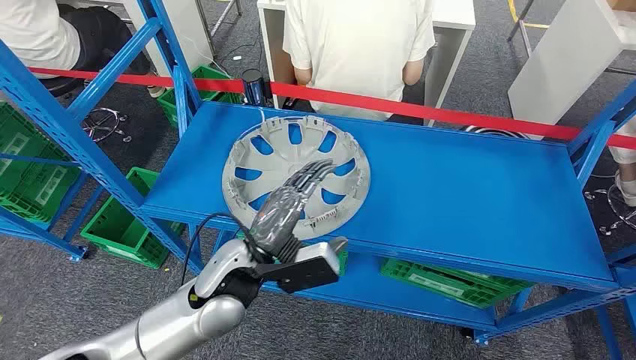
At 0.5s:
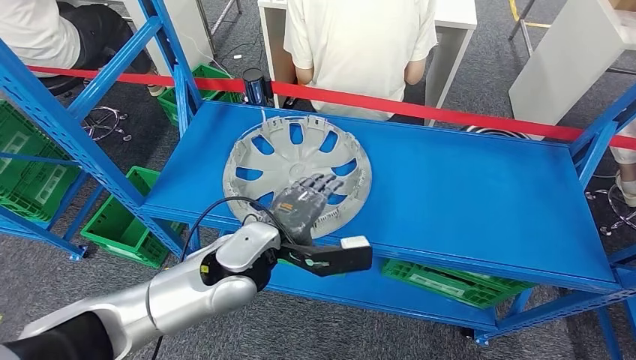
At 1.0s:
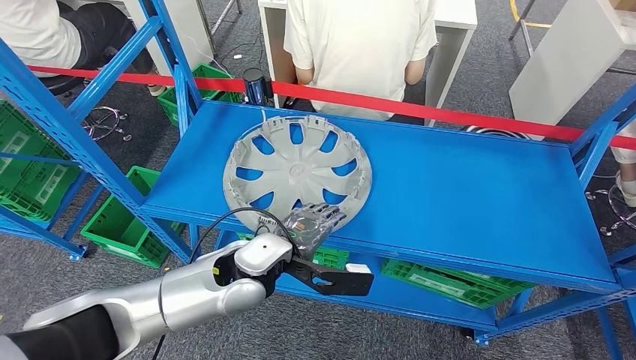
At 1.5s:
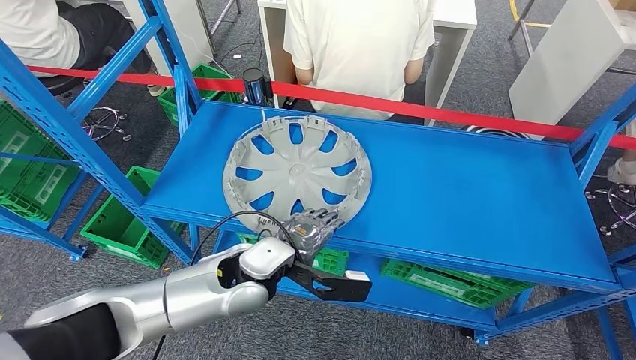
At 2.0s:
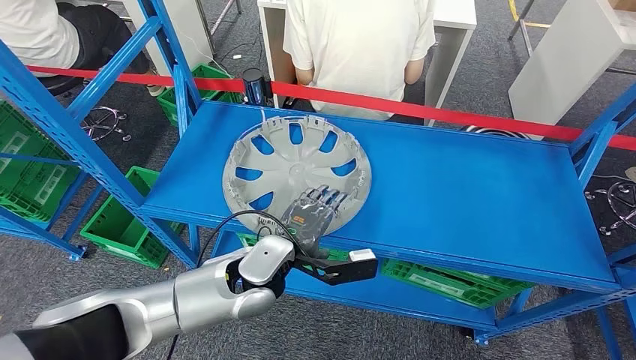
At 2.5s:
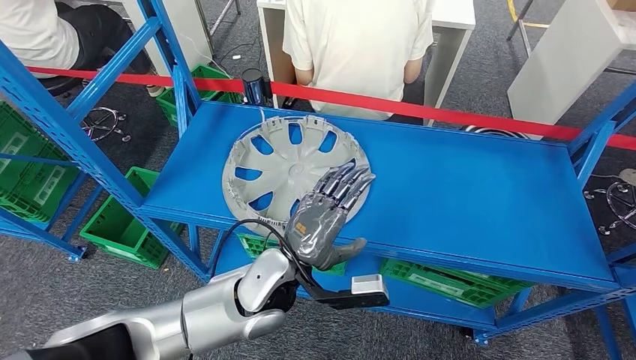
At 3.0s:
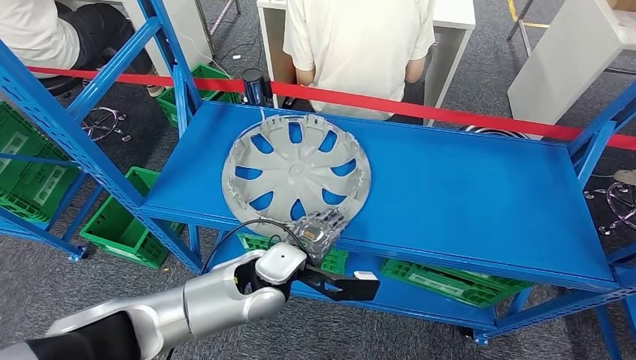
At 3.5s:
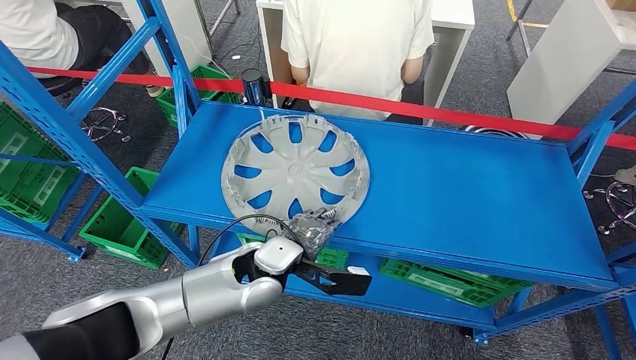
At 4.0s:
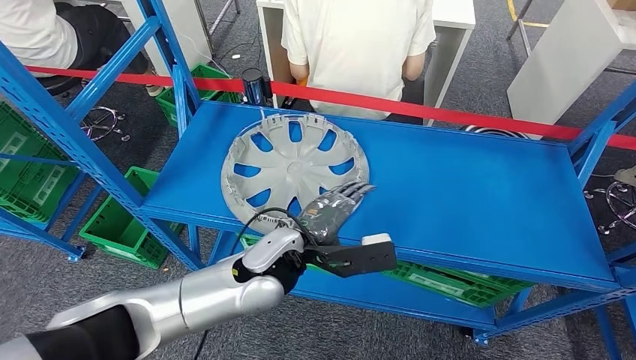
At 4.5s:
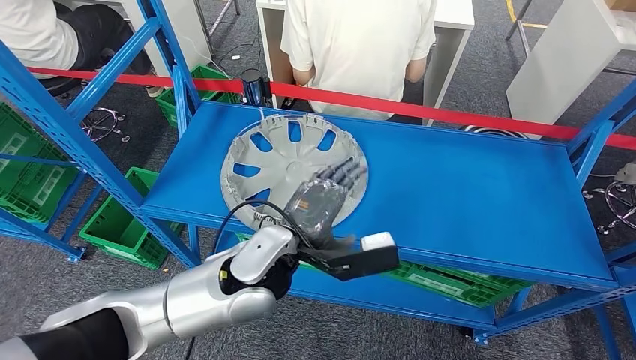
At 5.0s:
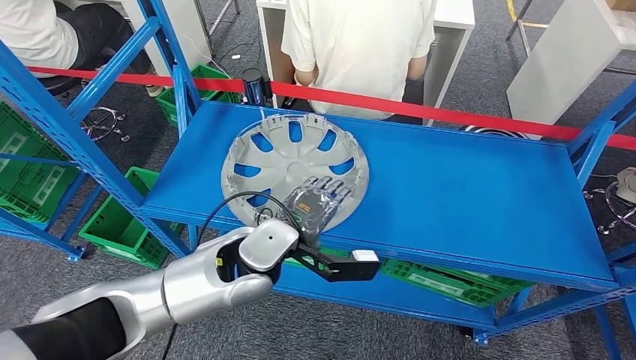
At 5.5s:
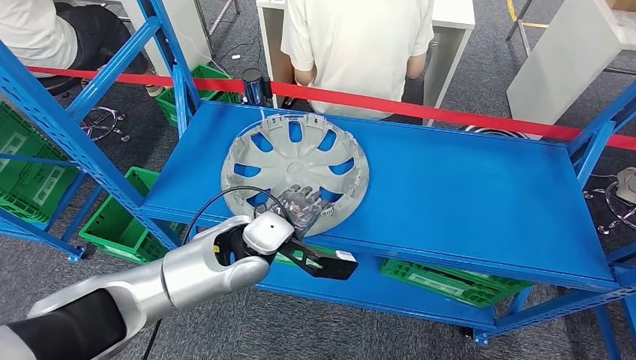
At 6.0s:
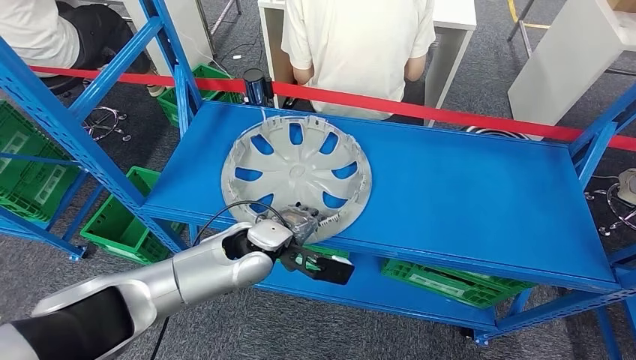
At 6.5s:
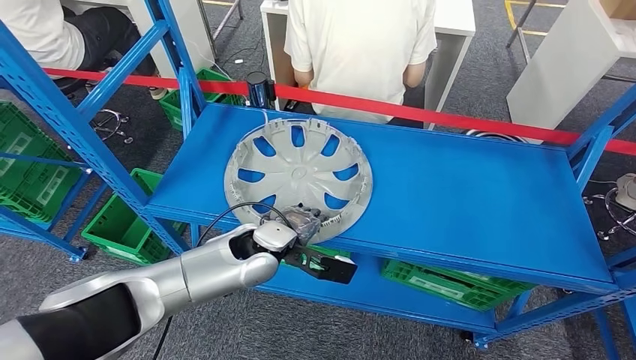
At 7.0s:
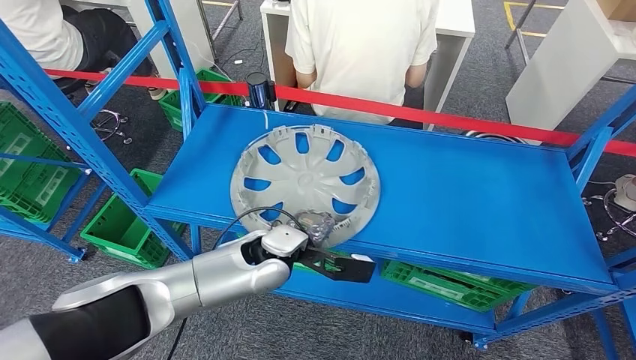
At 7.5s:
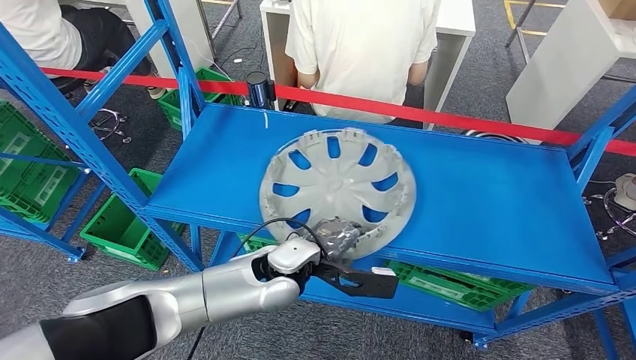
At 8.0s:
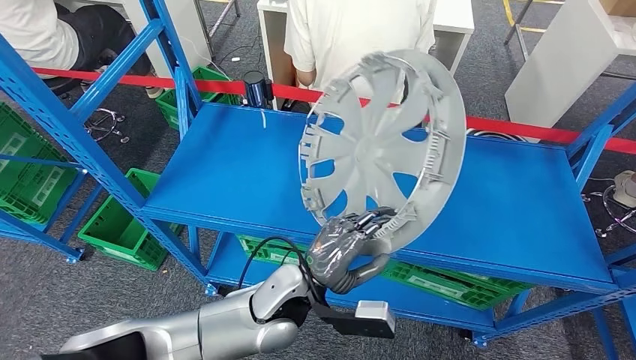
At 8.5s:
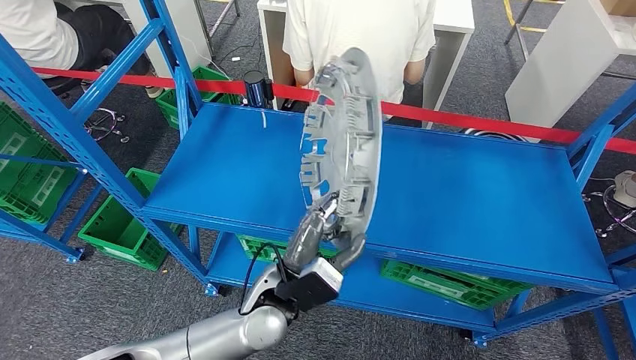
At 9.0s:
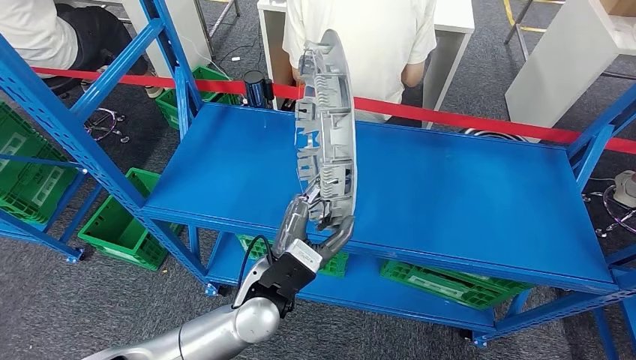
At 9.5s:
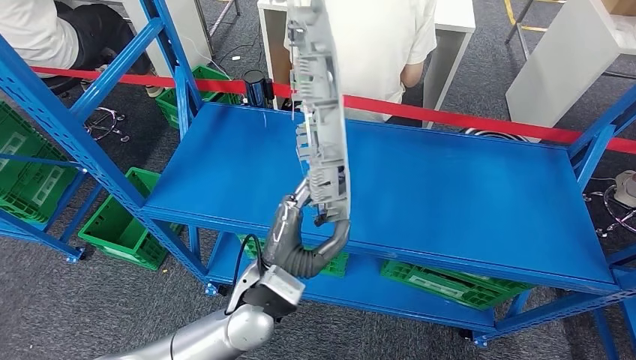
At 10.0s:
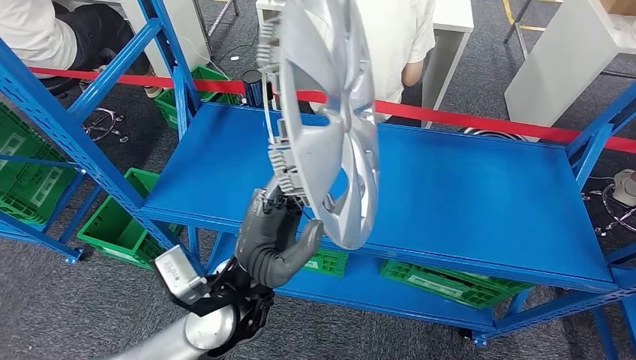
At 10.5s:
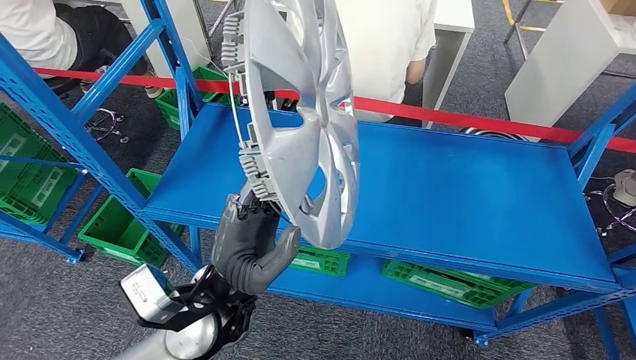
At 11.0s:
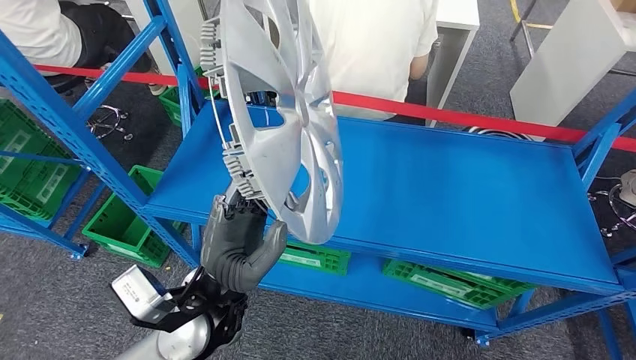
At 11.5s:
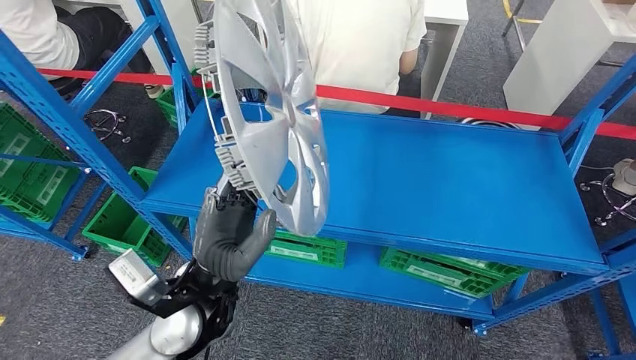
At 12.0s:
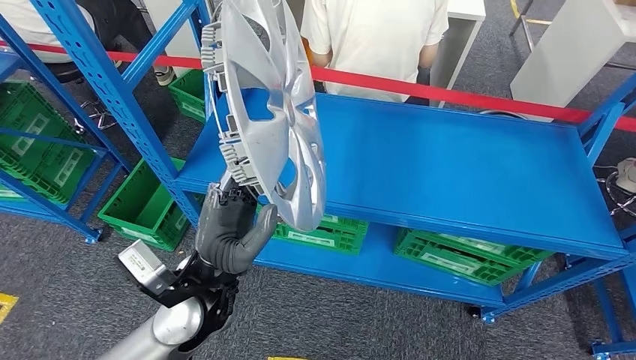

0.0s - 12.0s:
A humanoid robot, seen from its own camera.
Step, 0.0s - 10.0s: Pick up the small component from the shelf.
4.0s - 6.0s: The left hand ends up approximately 5 cm from where it was.

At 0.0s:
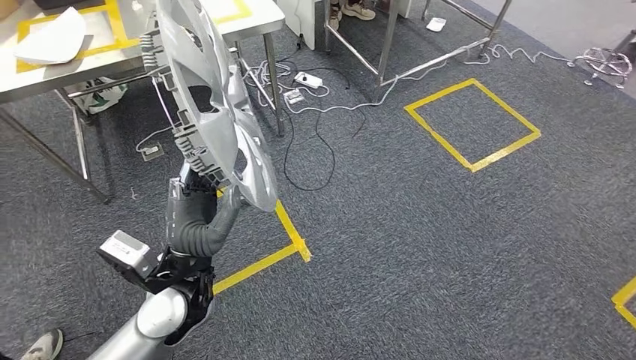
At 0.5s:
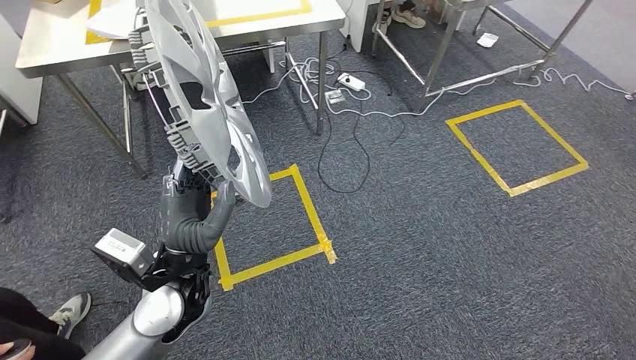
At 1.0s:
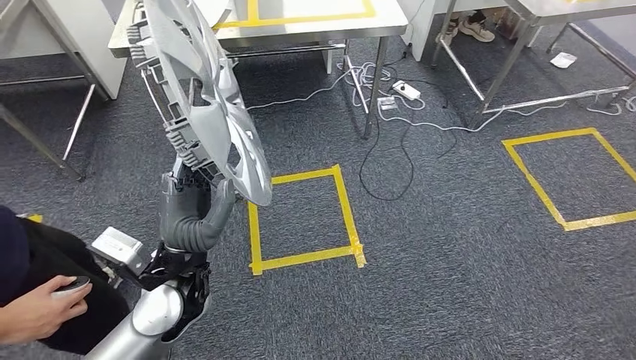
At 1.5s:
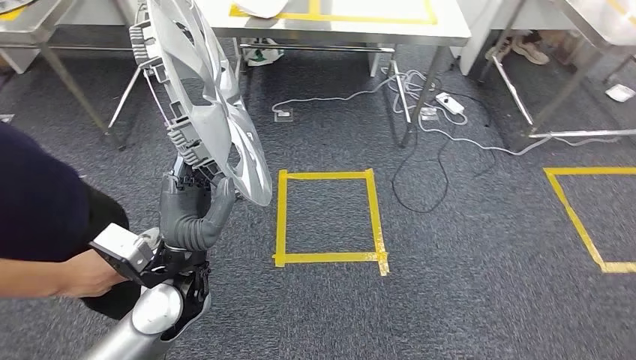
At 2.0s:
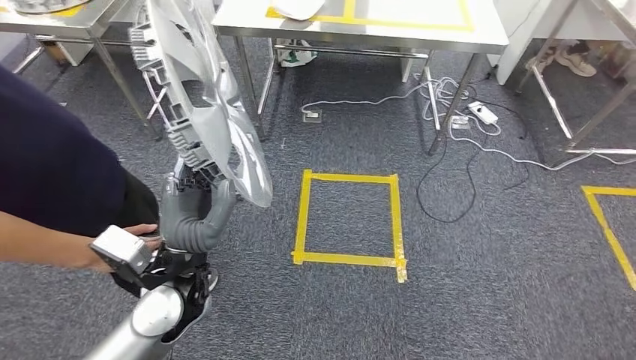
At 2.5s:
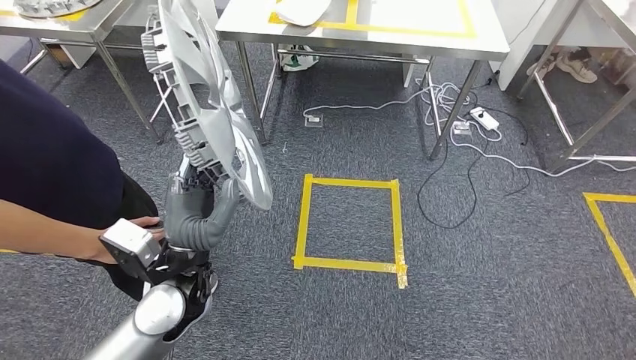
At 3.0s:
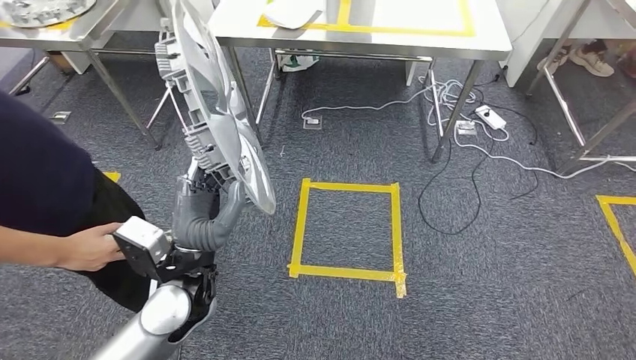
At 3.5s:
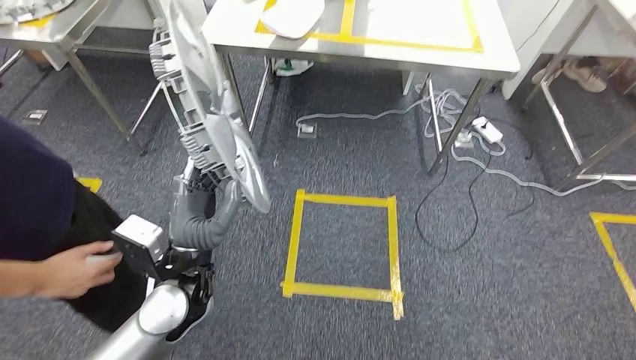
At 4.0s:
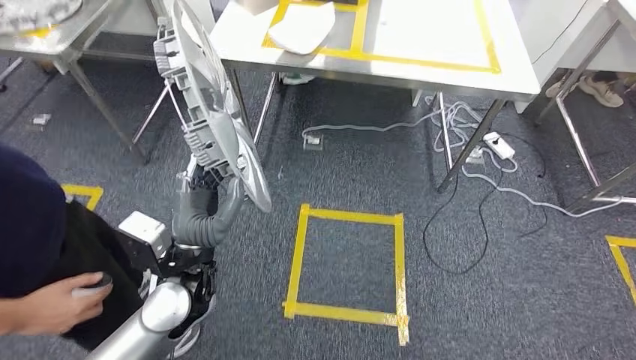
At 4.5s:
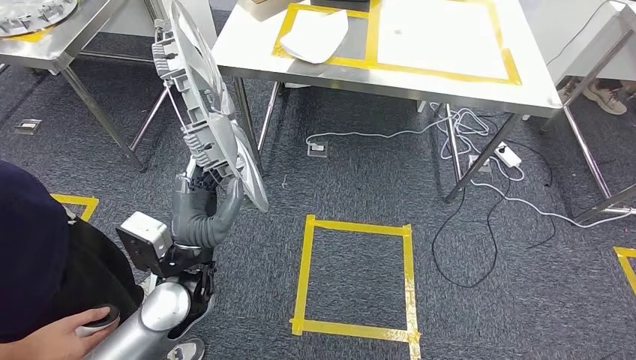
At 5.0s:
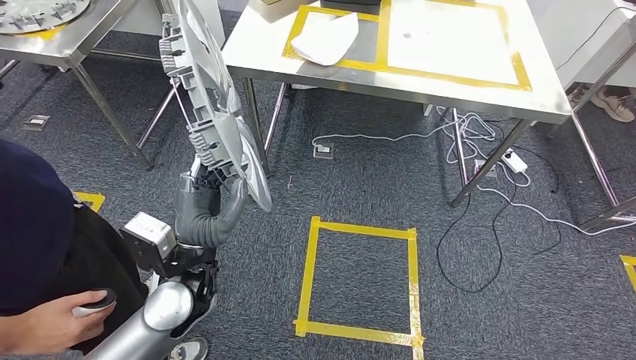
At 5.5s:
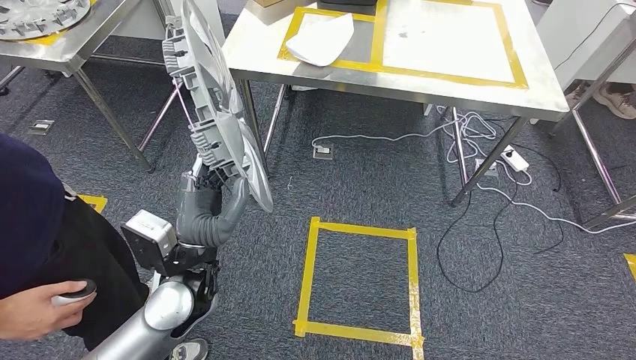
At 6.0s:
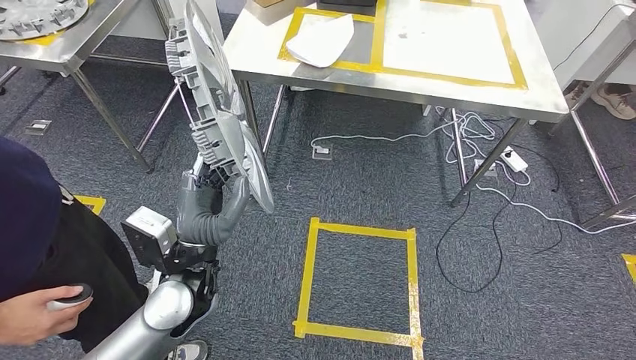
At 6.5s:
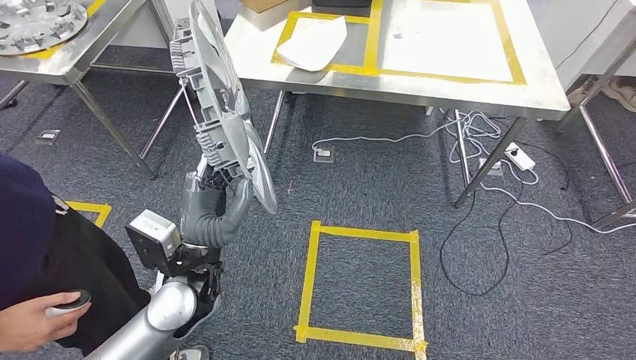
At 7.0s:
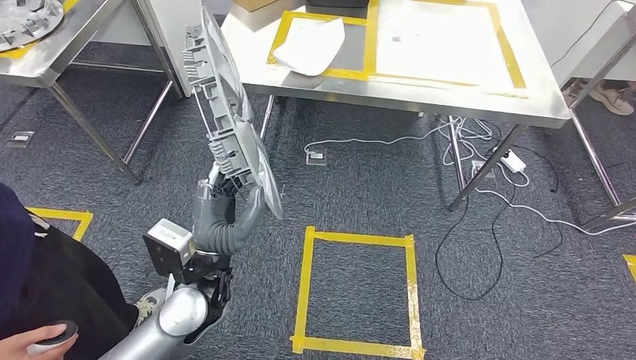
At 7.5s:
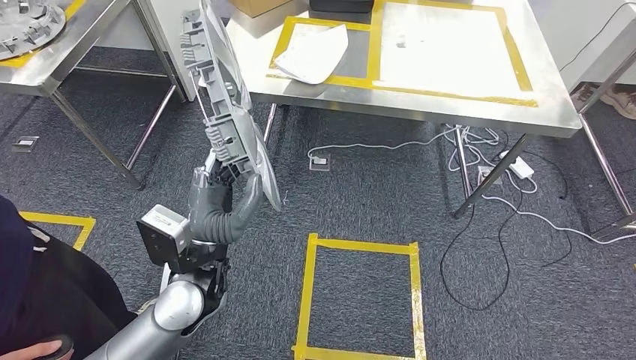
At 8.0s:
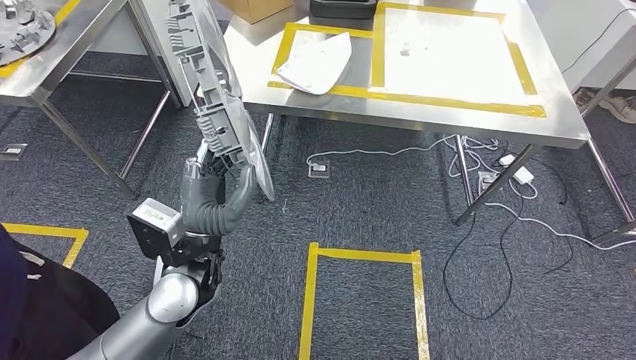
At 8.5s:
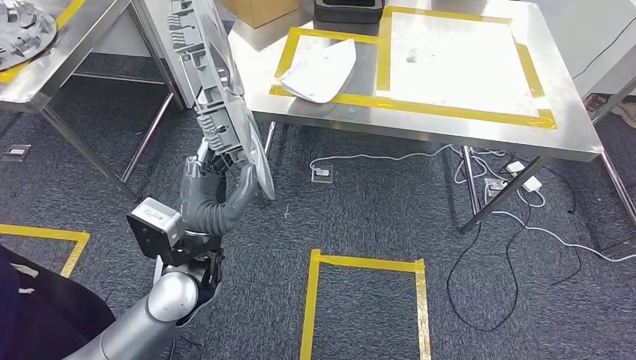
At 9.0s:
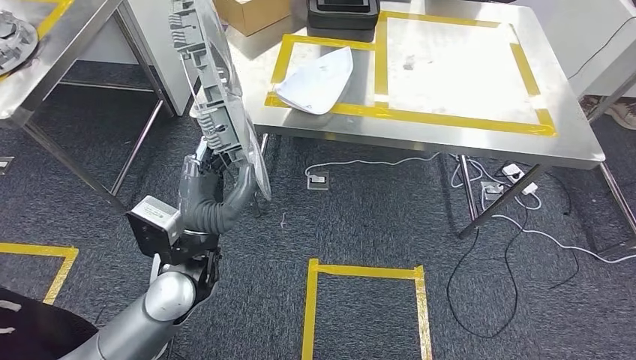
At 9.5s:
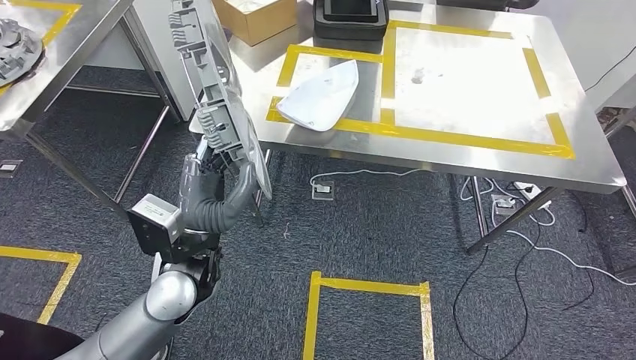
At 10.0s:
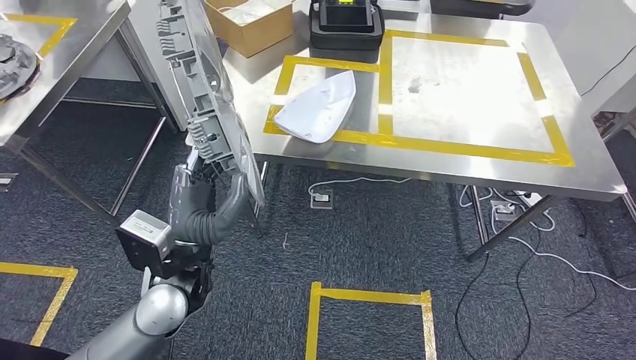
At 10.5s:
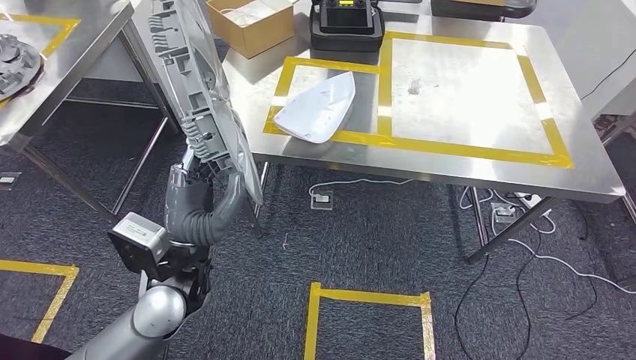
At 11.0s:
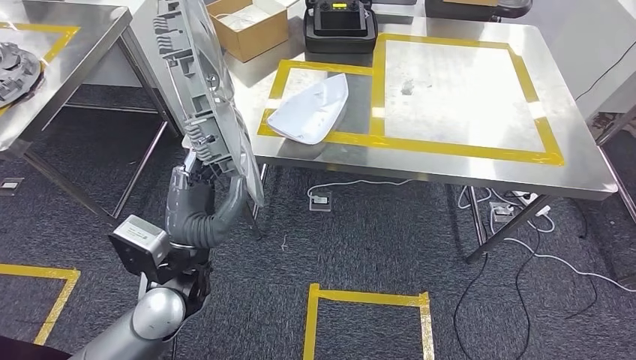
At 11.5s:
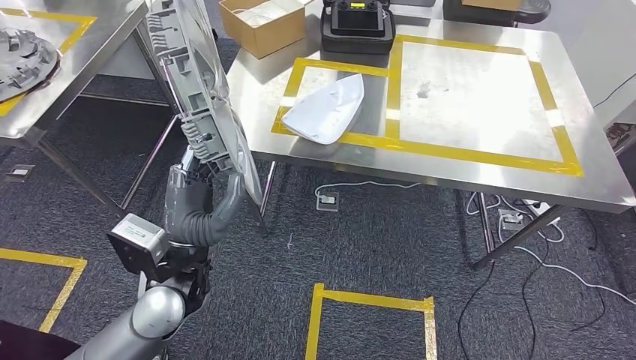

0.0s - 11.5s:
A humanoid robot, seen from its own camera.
Step, 0.0s - 7.5s: Move the small component to the workbench.
